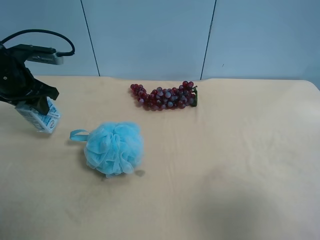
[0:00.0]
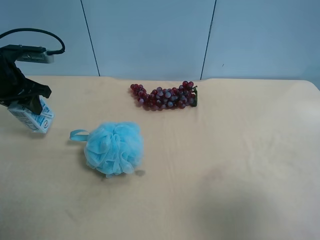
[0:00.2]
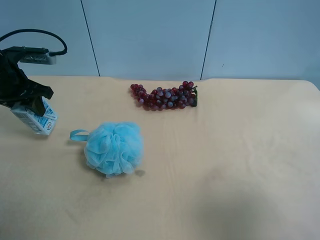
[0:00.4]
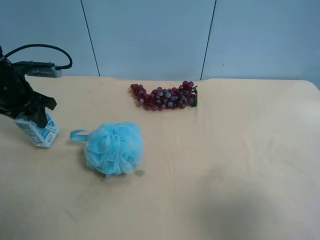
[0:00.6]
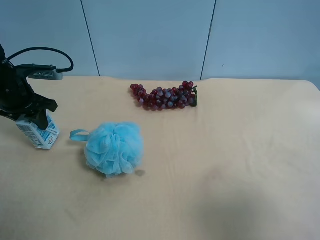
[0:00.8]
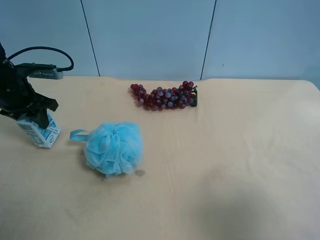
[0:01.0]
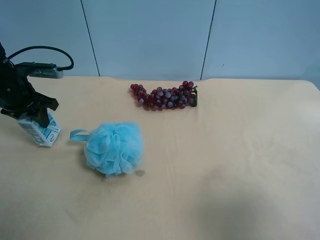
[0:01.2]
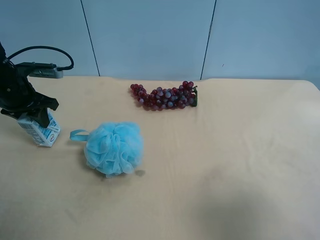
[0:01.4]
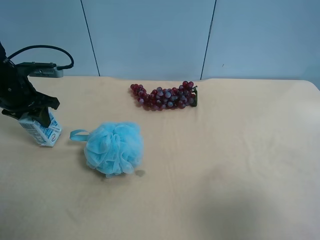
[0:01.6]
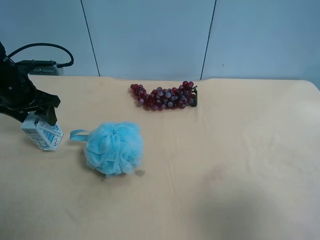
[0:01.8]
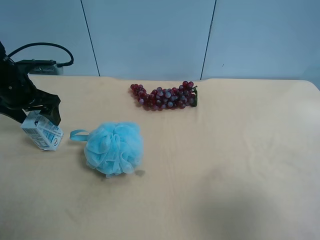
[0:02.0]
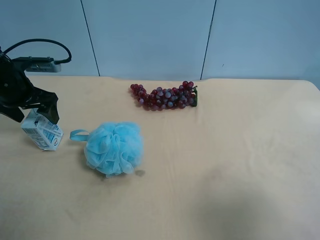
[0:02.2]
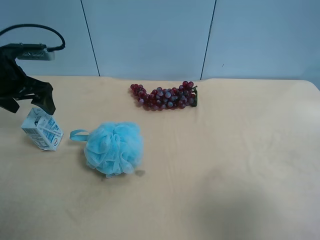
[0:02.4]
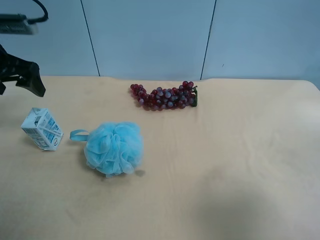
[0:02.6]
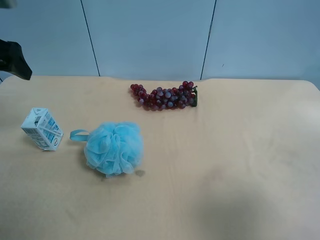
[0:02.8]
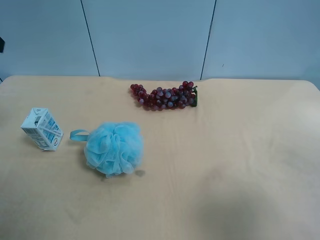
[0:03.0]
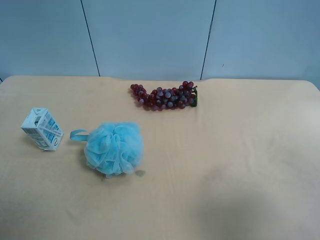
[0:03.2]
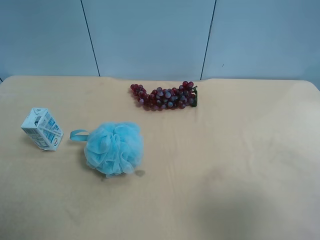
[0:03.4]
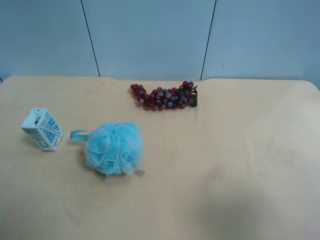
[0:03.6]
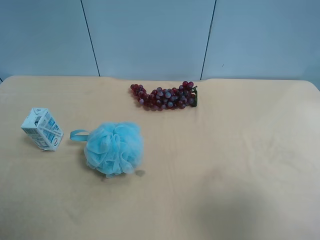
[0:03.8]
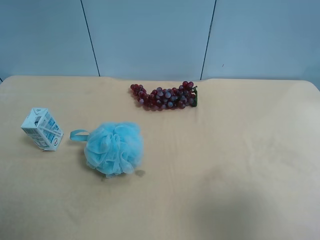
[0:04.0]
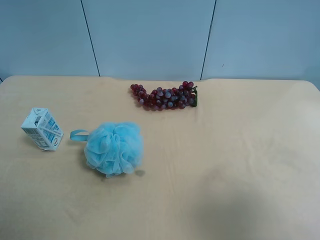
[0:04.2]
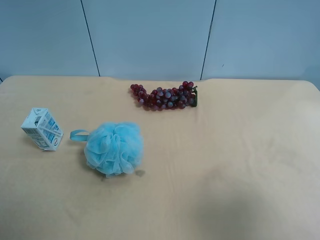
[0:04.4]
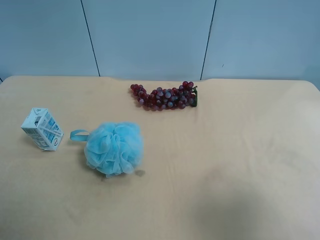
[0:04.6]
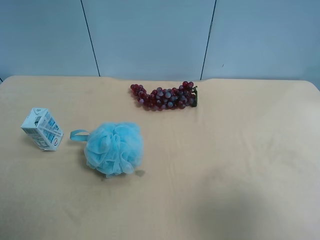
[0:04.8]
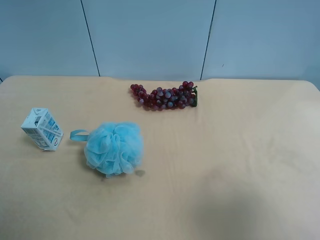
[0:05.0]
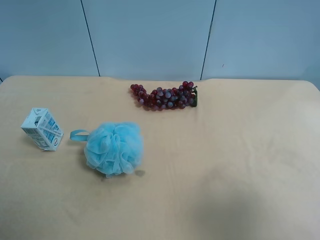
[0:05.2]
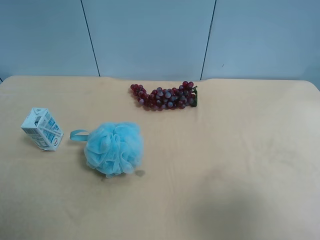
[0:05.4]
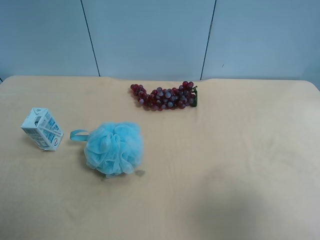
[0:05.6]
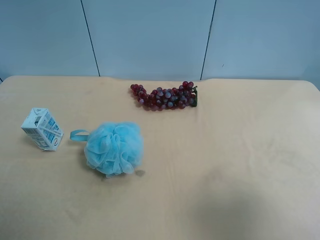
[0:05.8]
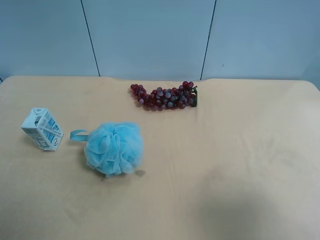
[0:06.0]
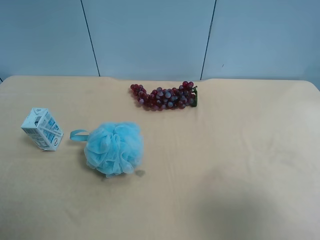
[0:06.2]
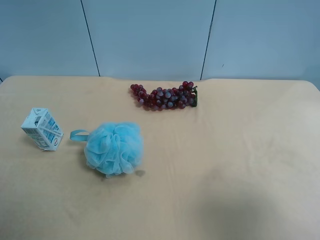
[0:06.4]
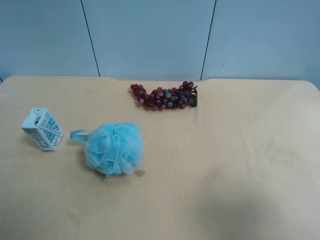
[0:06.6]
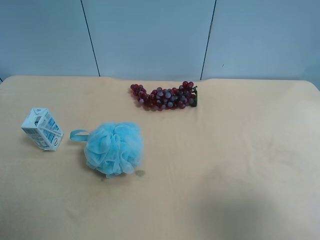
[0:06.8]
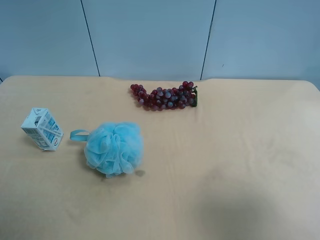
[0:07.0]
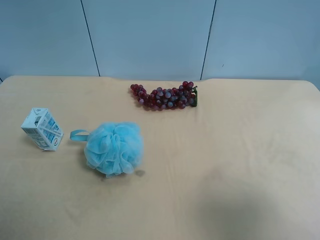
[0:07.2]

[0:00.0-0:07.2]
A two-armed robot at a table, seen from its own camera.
Task of the whole recording: use the right gripper to pick up the item and transfer it from the right gripper to the left gripper.
0:00.0 to 0:01.4: The grippers make only small movements.
0:01.4 to 0:02.8: The left gripper is displaced upward and backward by some 15 cm, and opens up.
0:02.8 to 0:04.4: The left gripper travels backward by roughly 25 cm.
0:05.8 to 0:07.2: Both grippers stay about where they are.
